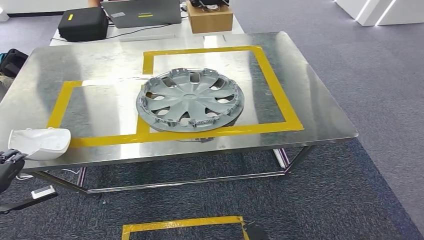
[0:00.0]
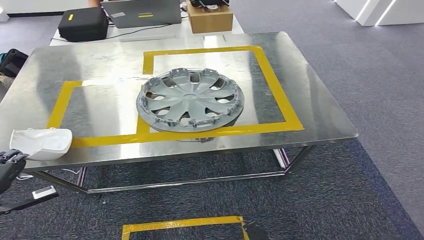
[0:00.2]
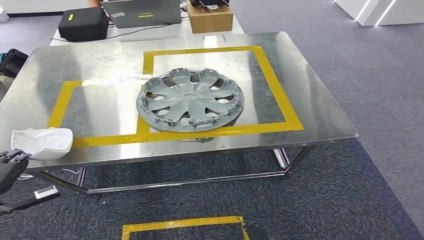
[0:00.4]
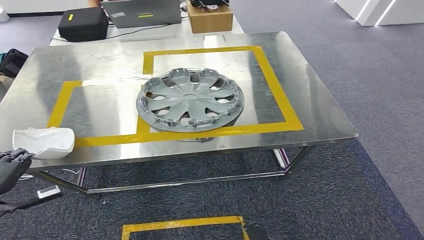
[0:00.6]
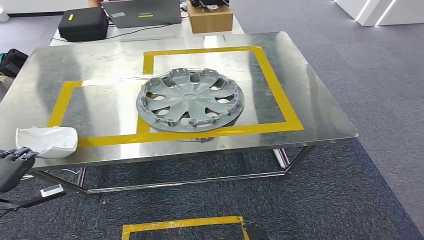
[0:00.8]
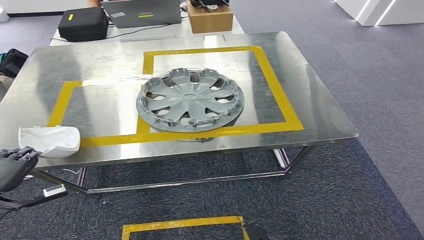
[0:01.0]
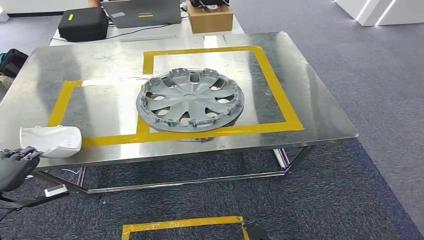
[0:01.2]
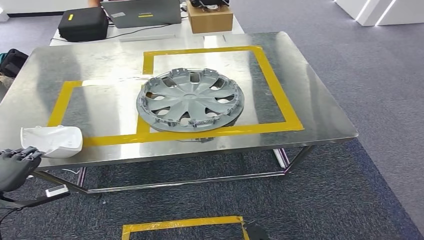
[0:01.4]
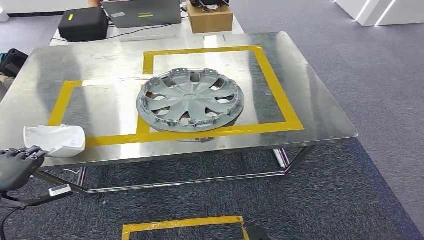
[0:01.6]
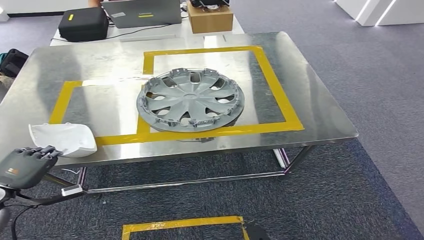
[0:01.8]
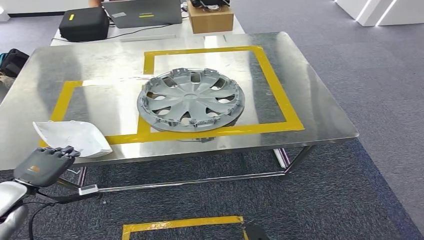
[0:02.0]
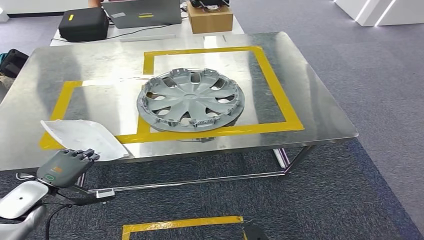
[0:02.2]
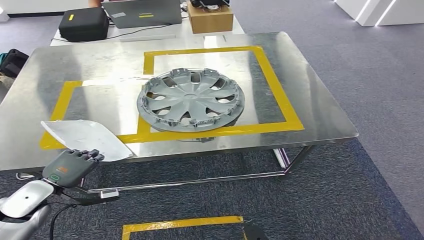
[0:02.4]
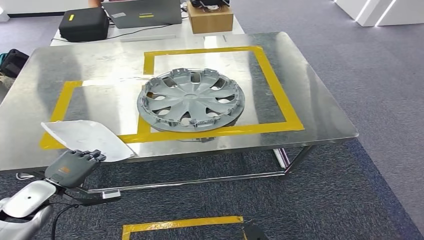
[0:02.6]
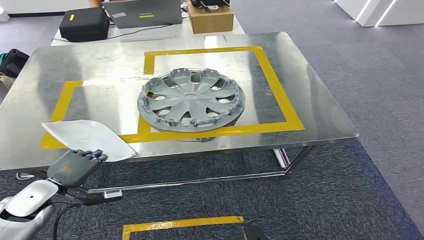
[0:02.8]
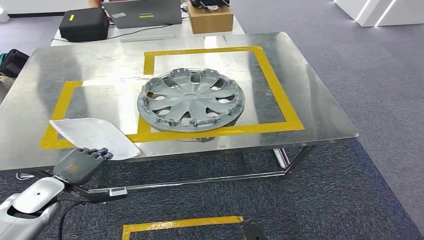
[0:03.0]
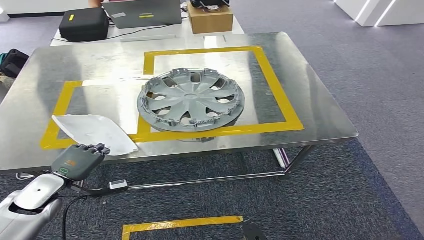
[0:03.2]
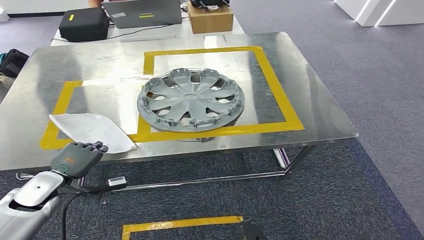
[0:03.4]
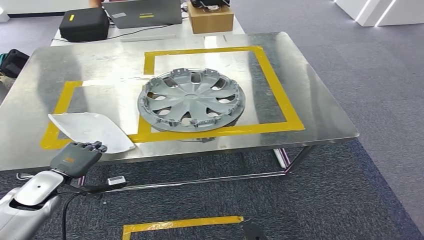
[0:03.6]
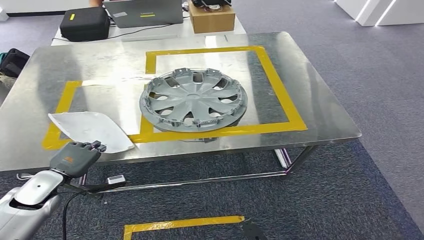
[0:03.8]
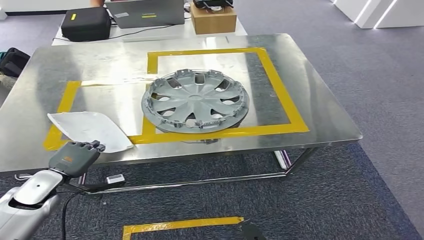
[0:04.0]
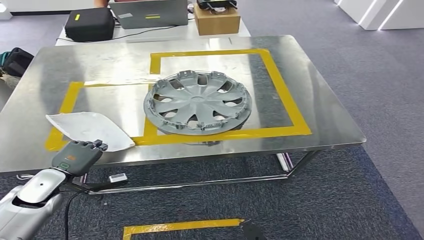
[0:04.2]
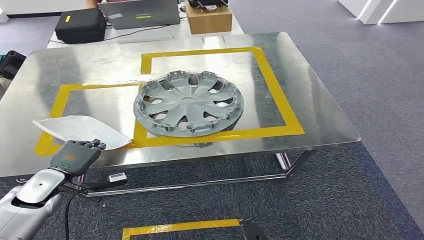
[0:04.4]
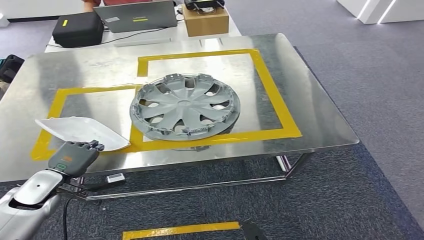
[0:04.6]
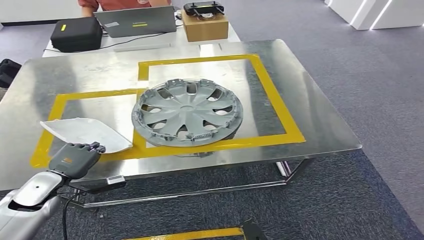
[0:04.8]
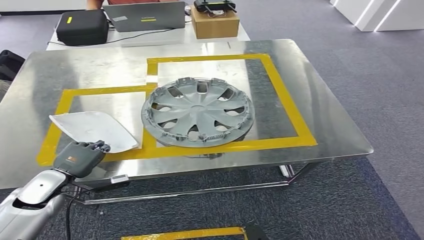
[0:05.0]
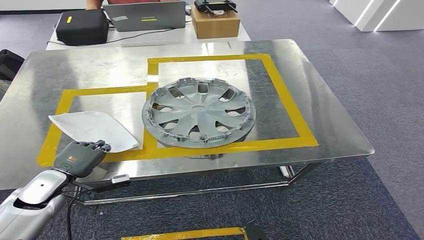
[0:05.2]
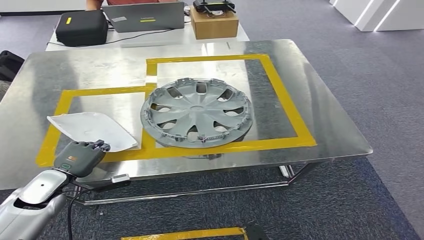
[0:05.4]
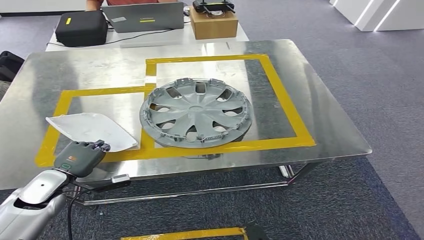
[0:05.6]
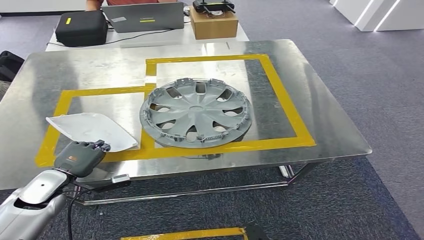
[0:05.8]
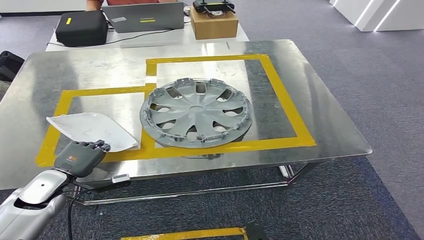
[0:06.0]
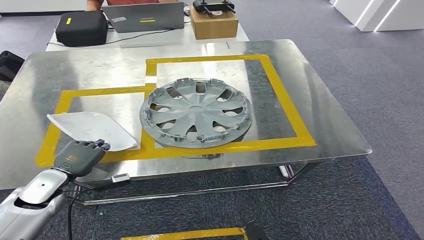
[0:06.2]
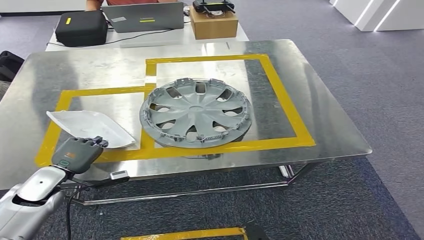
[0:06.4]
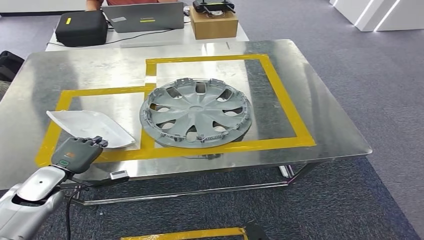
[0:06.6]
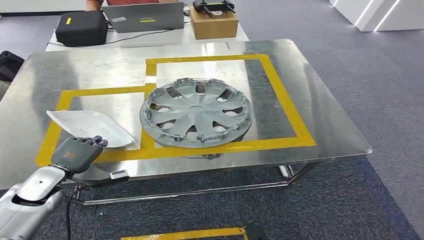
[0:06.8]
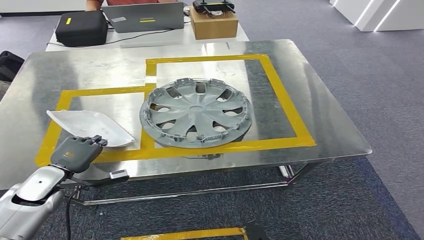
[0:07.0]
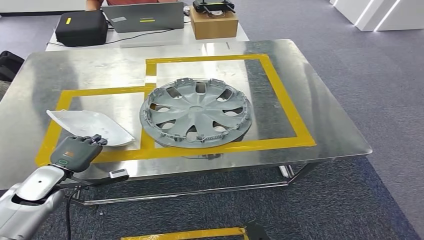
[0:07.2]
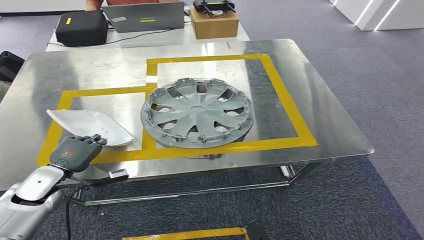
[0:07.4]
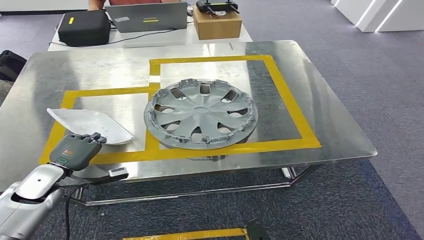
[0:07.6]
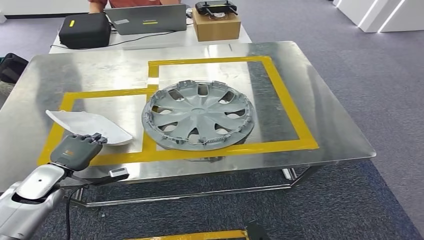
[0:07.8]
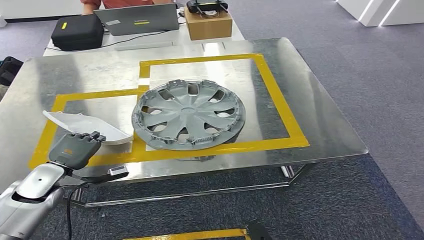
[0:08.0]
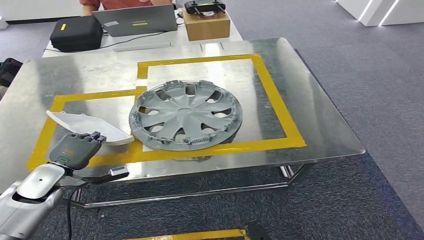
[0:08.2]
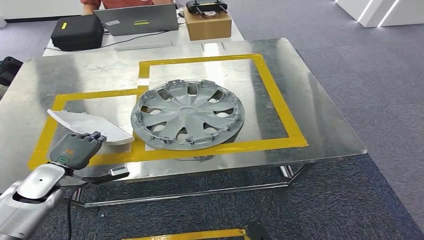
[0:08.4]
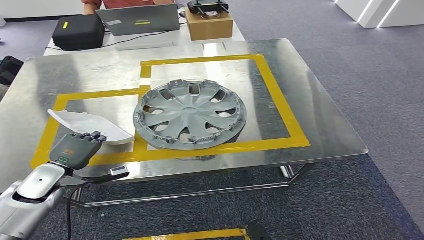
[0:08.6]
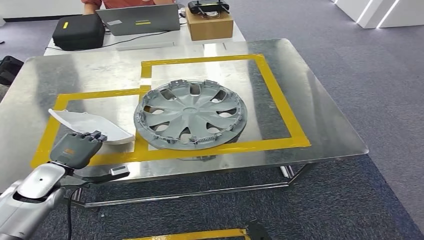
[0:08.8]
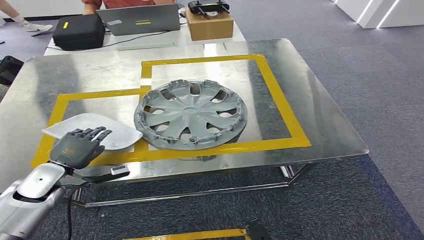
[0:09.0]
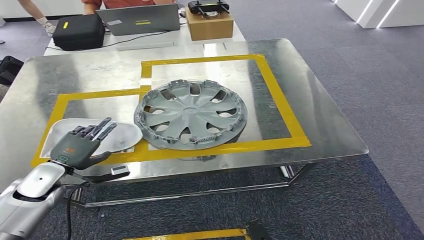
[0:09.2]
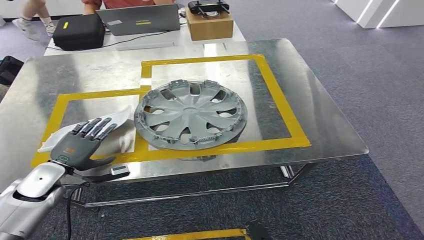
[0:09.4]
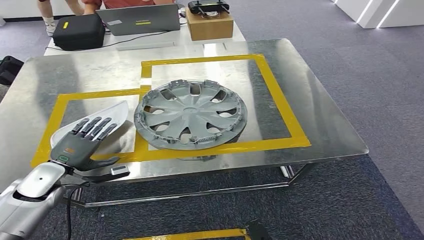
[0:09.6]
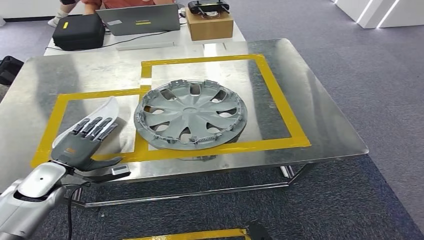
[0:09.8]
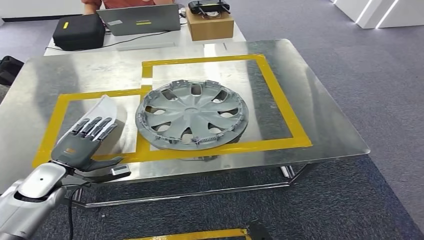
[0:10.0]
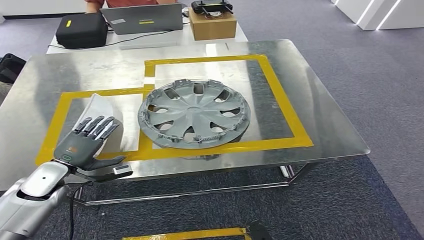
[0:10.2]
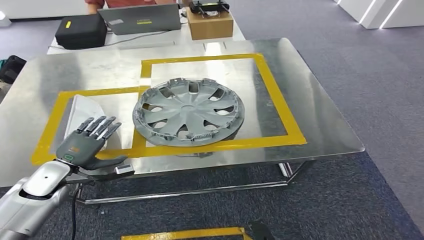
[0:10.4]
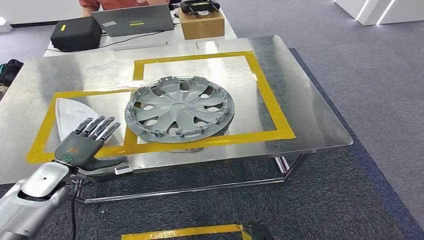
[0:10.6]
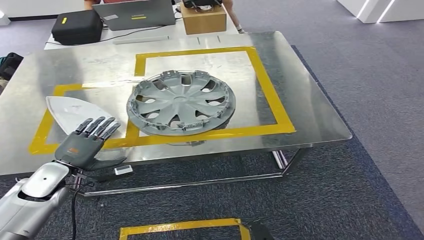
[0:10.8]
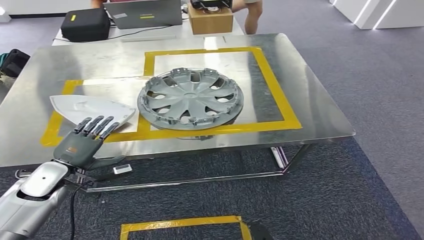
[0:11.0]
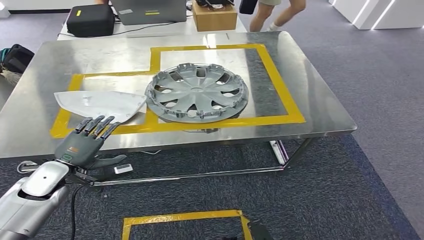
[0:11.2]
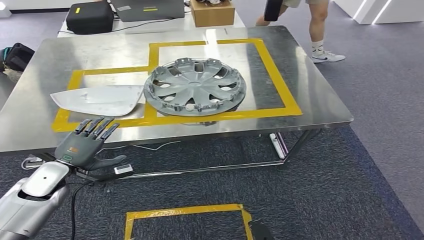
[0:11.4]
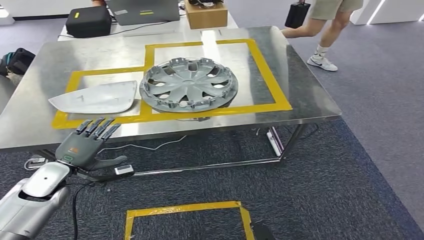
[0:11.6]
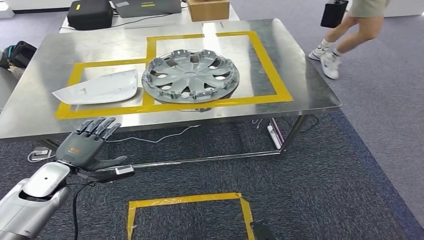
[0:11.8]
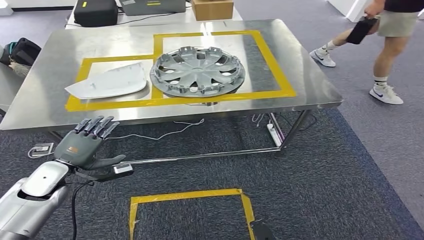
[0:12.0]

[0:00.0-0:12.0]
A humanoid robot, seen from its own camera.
Step, 0:00.0 to 0:11.4: Insert the small parts into the corresponding holes on the workbench.
0:00.0 to 0:01.6: The hands move only a little.
0:01.6 to 0:03.0: The left hand goes approximately 10 cm to the right.
0:03.0 to 0:04.4: The hands stay close to where they were, moving slightly.
0:06.0 to 0:07.6: The hands make only small movements.
0:07.6 to 0:10.4: Both hands stay about where they are.

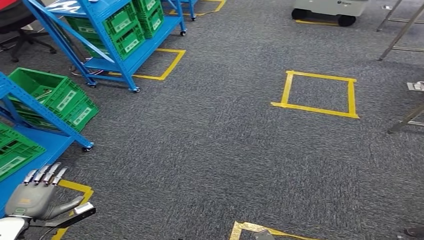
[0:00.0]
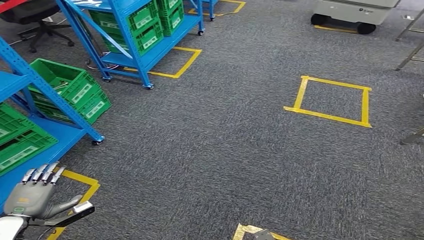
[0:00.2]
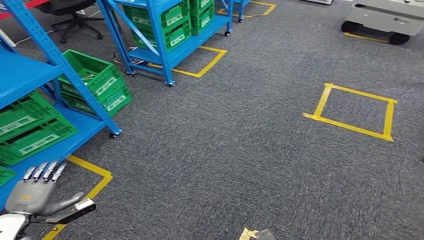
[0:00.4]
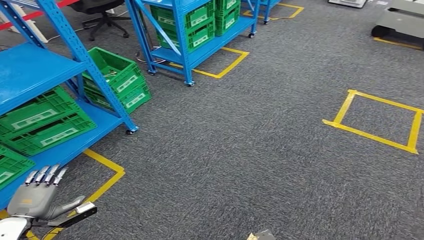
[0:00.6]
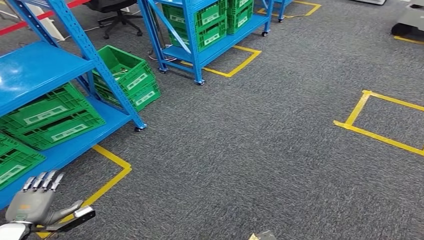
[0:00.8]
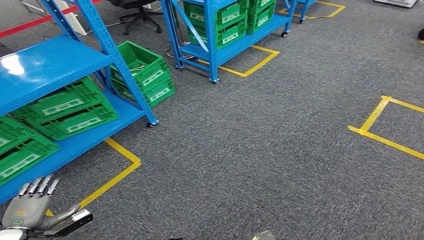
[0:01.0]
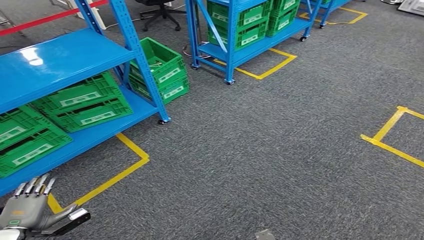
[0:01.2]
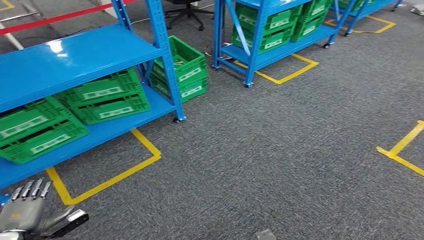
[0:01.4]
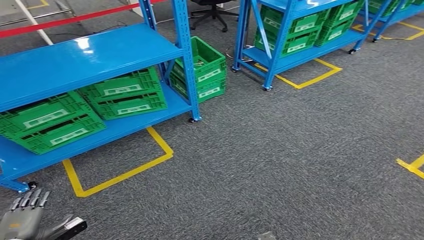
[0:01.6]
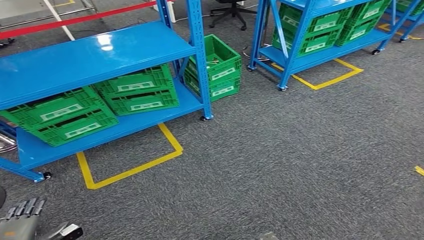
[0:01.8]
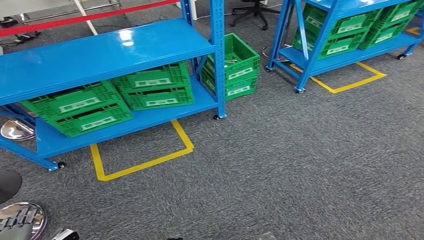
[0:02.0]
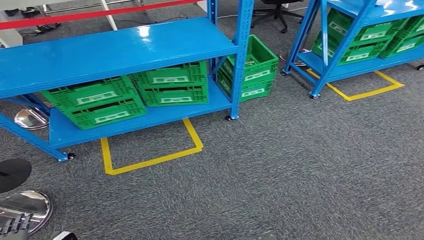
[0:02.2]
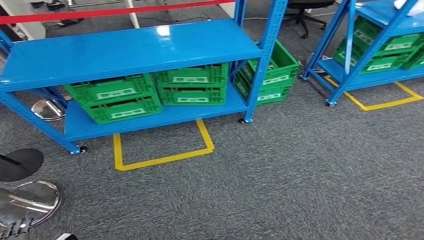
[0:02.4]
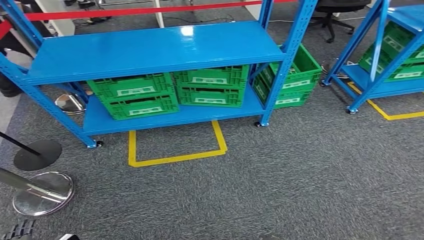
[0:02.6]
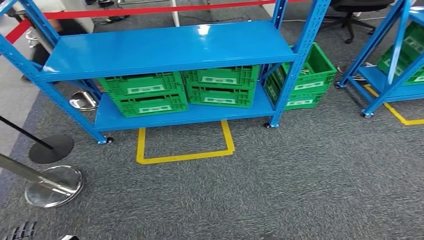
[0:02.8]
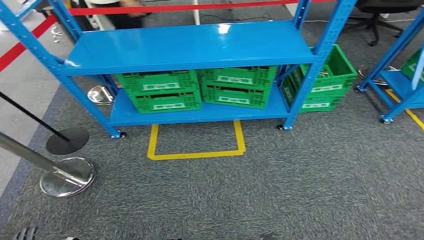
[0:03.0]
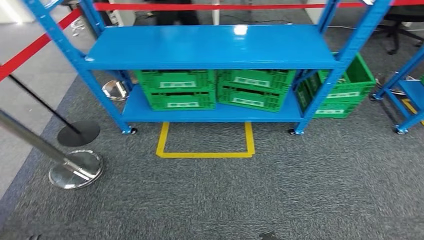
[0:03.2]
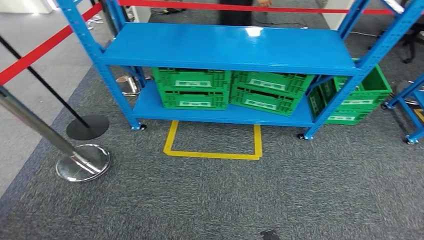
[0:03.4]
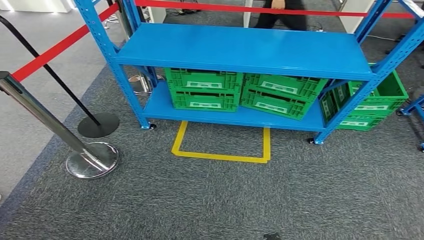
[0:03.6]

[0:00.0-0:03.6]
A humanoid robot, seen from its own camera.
Step, 0:00.0 to 0:03.6: Move to the initial position of the workbench.
